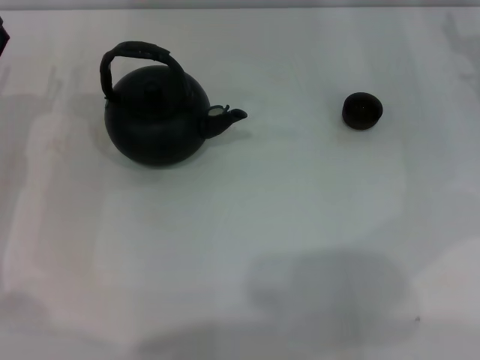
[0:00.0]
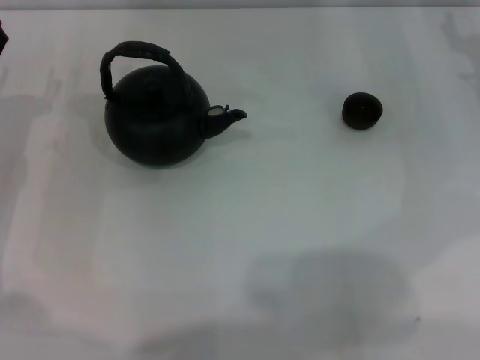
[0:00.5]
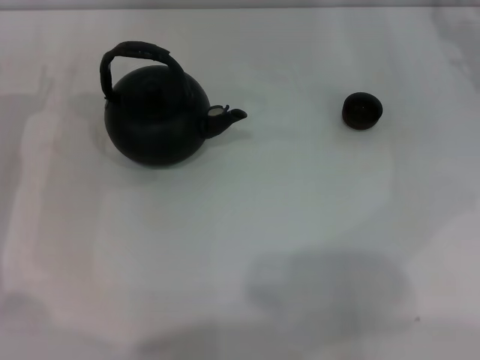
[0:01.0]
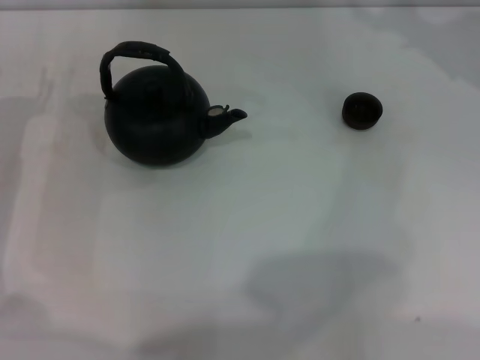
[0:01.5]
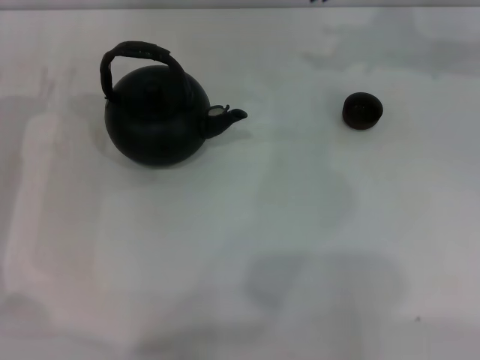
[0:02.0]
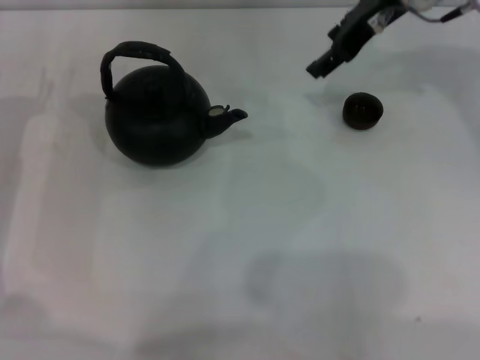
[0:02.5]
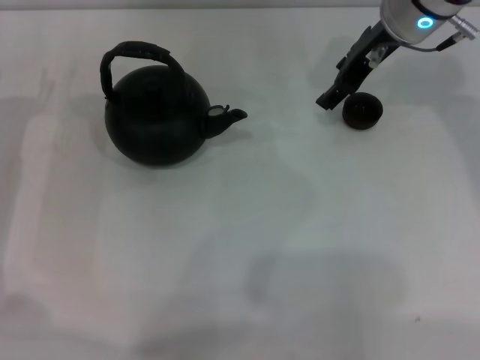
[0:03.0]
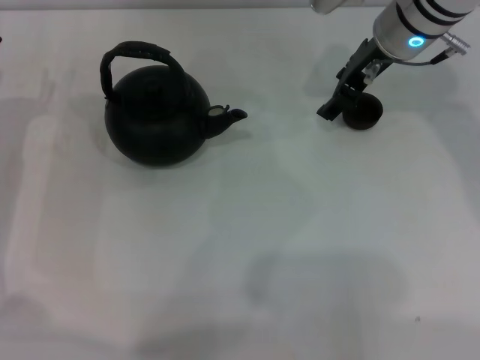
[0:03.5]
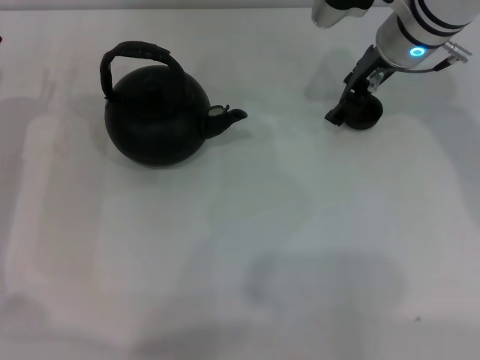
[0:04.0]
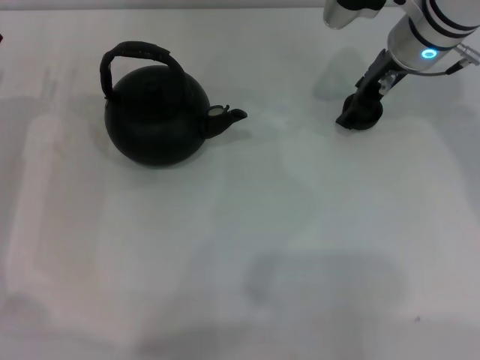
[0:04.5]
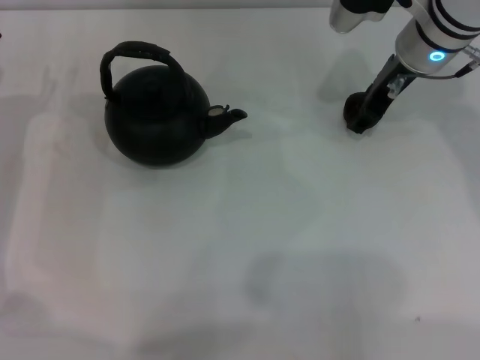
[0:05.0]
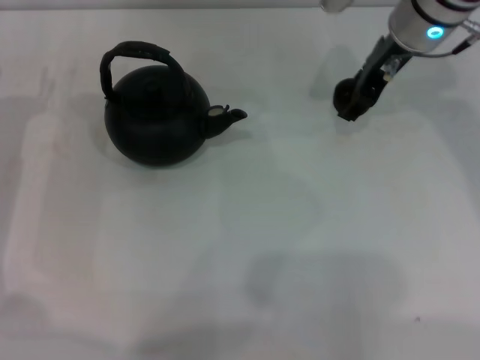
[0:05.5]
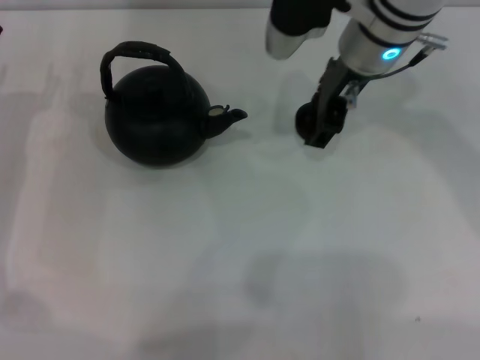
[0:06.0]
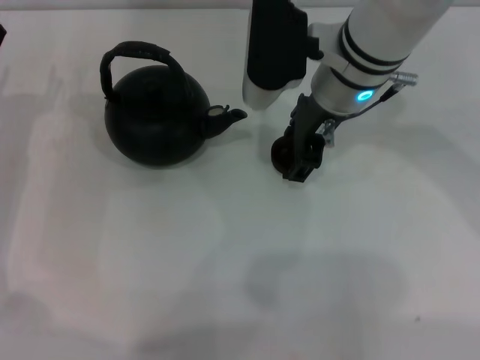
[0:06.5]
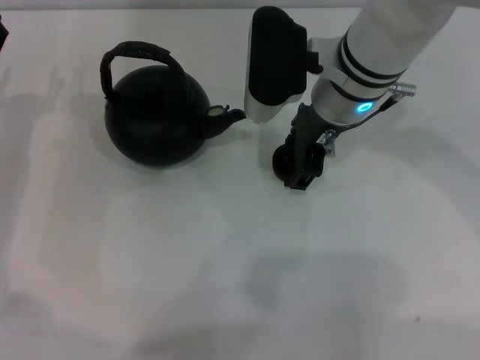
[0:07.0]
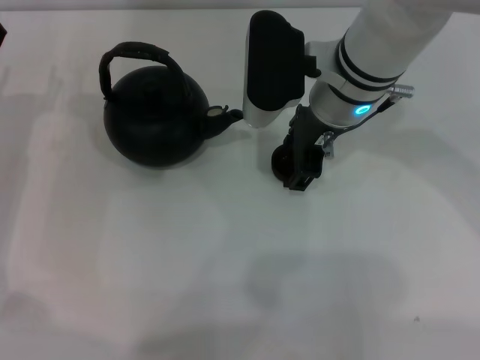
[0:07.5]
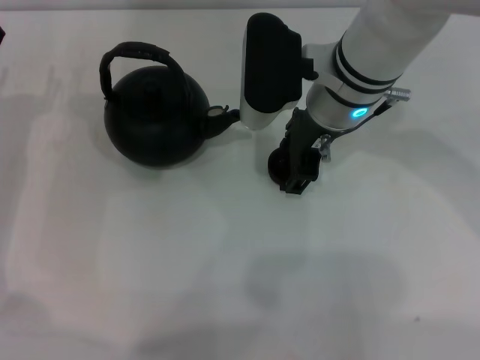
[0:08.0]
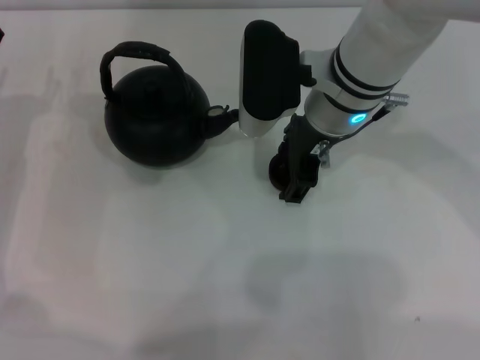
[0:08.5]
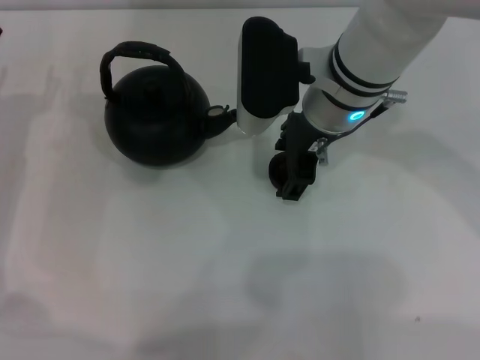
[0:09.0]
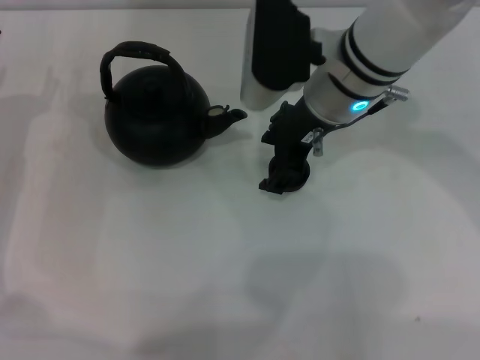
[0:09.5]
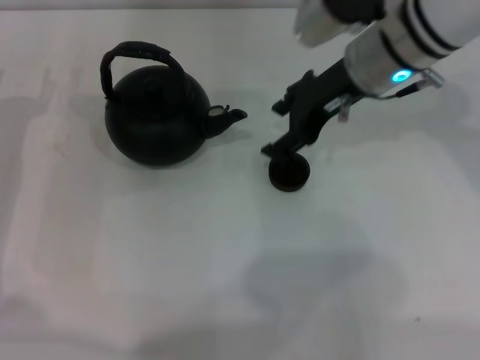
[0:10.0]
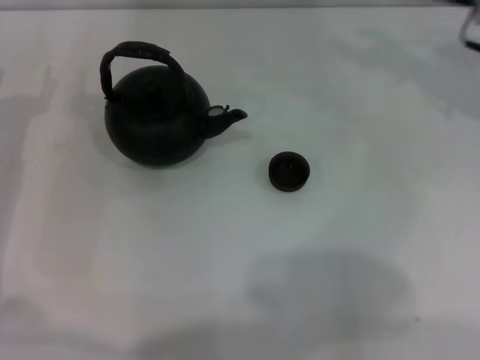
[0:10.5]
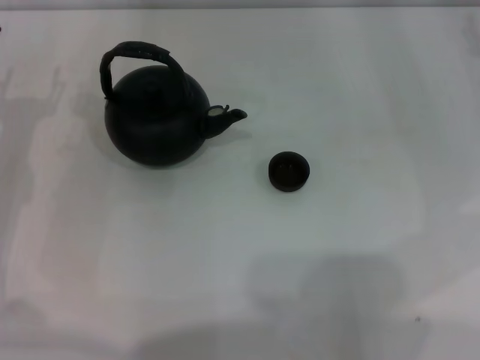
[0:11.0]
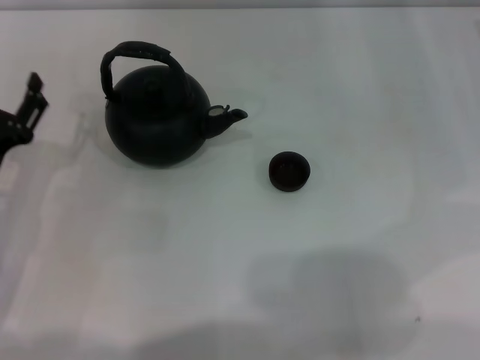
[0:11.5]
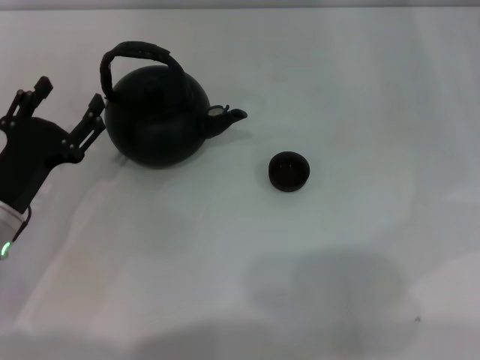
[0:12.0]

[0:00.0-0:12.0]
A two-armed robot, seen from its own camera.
Task of the whole recording: Grasp the handle of the teapot with one hand and pour tea into the teacup.
Step, 0:00.0 to 0:05.5: Pick up the teacup with the right gripper.
Step, 0:06.0 to 0:10.0: Place the teacup in the center of view with the right gripper.
0:02.0 to 0:04.0: The right gripper heads downward and to the left, covering roughly 10 cm.
0:04.0 to 0:06.0: The right gripper heads to the left, covering roughly 5 cm, and closes.
0:06.0 to 0:08.0: The right gripper shifts by about 5 cm, and opens its fingers.
0:08.0 to 0:10.0: The right gripper shifts about 5 cm to the right.
0:10.0 to 0:12.0: The right gripper heads to the right, covering some 20 cm. Meanwhile the left gripper moves backward, some 5 cm.

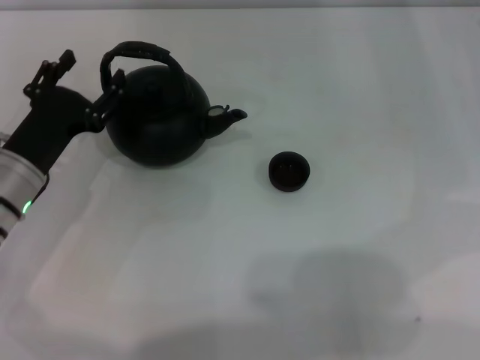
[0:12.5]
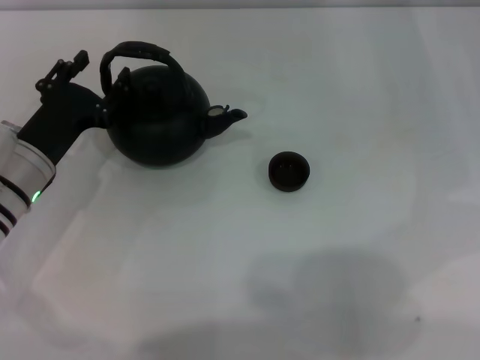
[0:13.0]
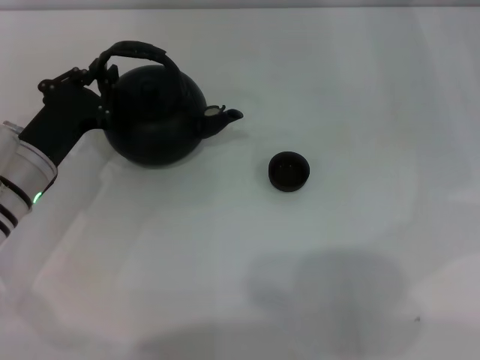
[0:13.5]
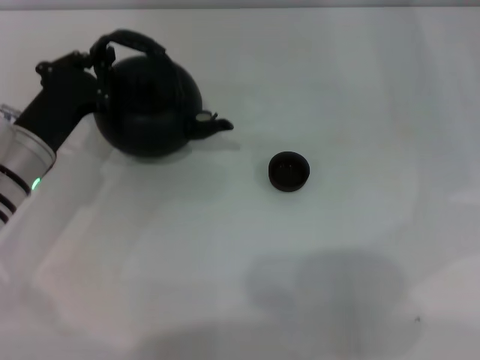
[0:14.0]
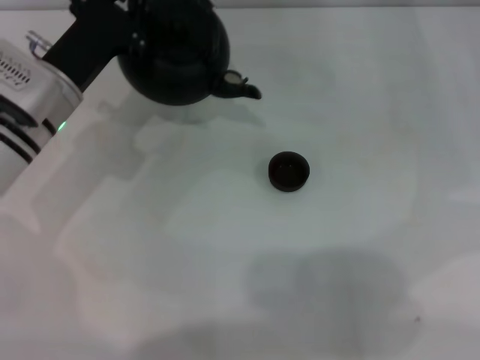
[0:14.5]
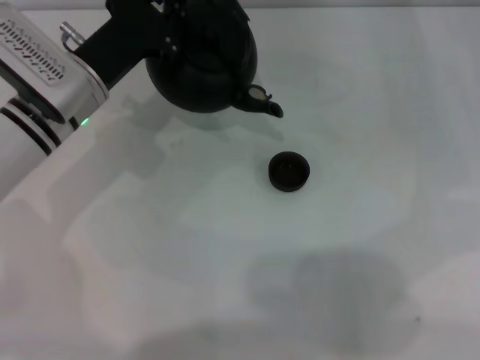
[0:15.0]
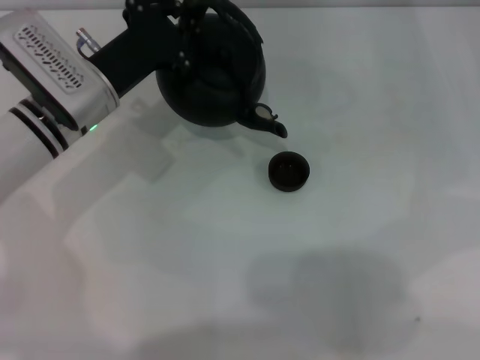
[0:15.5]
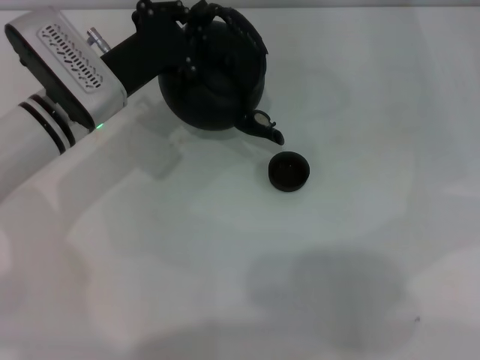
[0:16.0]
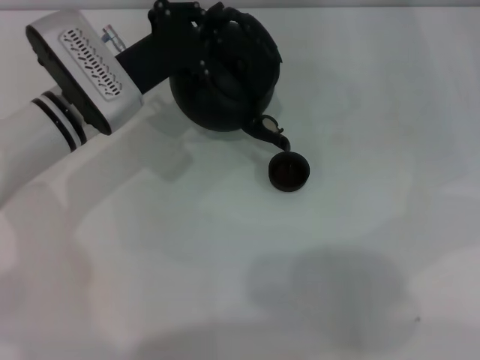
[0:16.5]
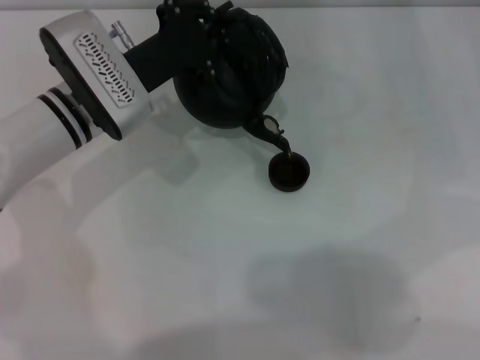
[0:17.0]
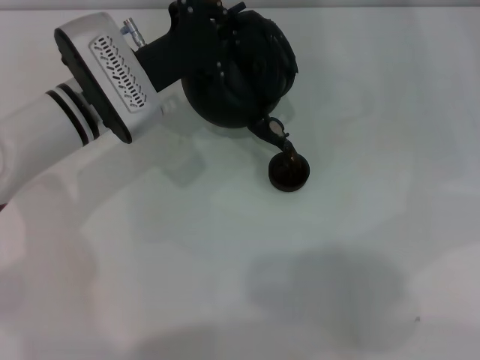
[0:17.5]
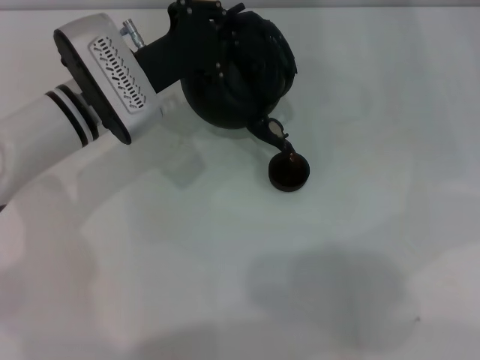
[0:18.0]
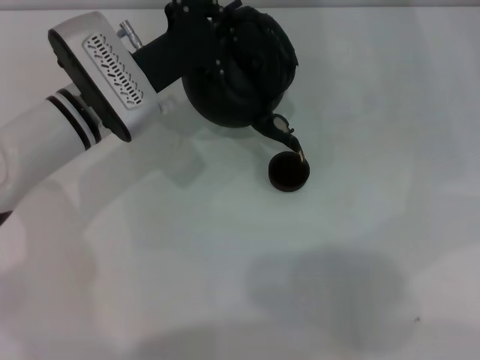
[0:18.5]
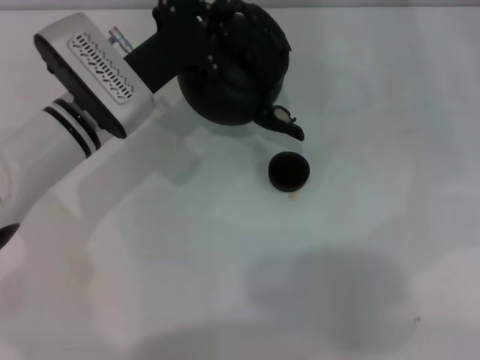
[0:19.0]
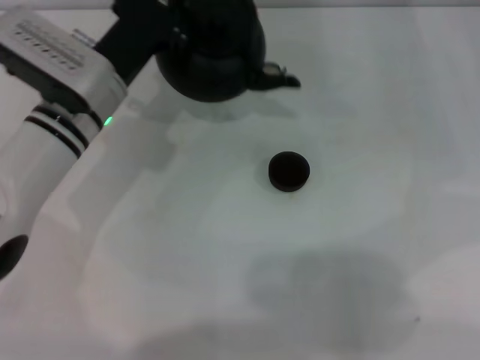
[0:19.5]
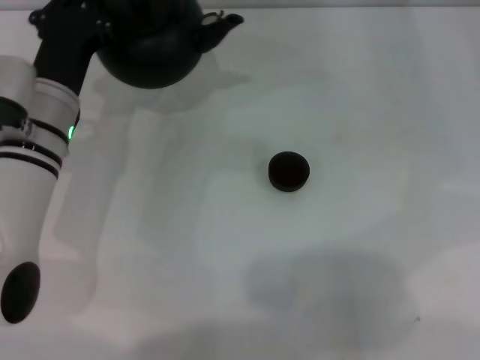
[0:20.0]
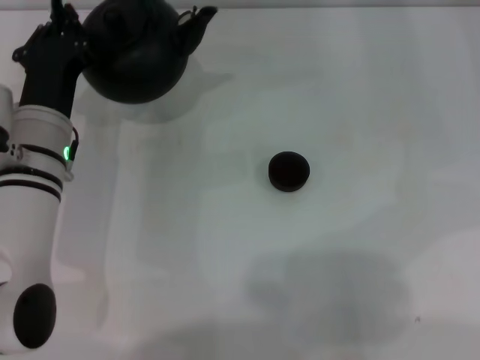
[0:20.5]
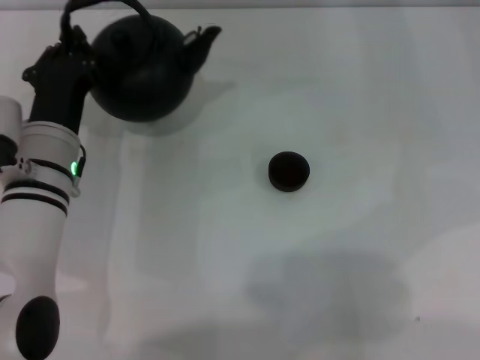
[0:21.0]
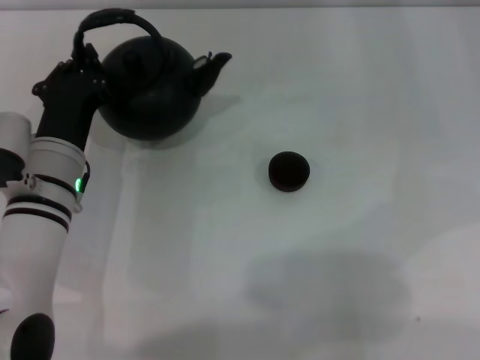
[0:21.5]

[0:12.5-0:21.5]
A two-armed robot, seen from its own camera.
Task of the whole recording: Grasp the handle of the teapot with one hand and pour tea into the teacup.
Step, 0:12.5 to 0:15.0: Pick up the teapot with the left gripper.
Step, 0:15.5 to 0:19.0: Pour tea into the teacup with the left gripper.
0:12.5 to 0:14.5: The left gripper moves forward, roughly 5 cm, and closes its fingers.
0:14.5 to 0:17.0: The left gripper goes some 5 cm to the right.
0:19.5 to 0:21.5: The left gripper shifts about 5 cm backward.

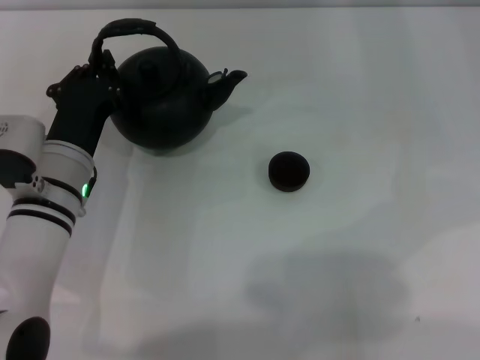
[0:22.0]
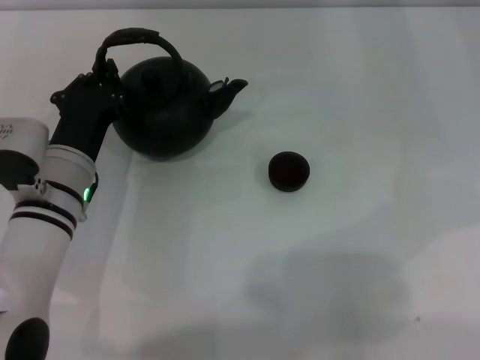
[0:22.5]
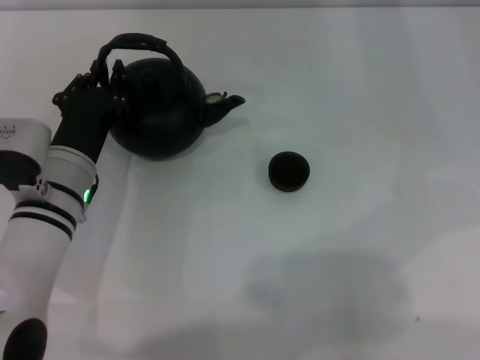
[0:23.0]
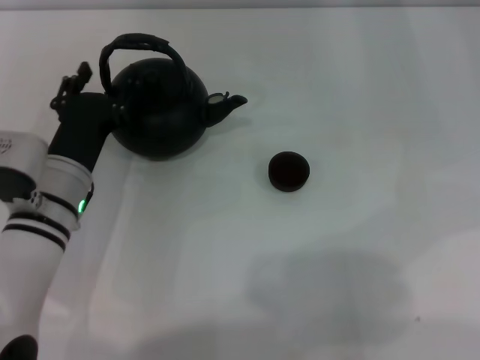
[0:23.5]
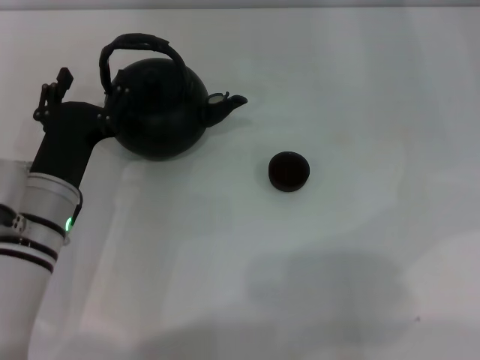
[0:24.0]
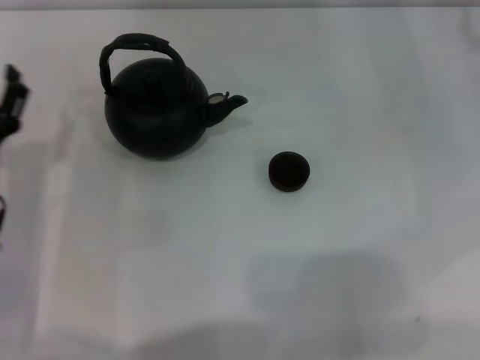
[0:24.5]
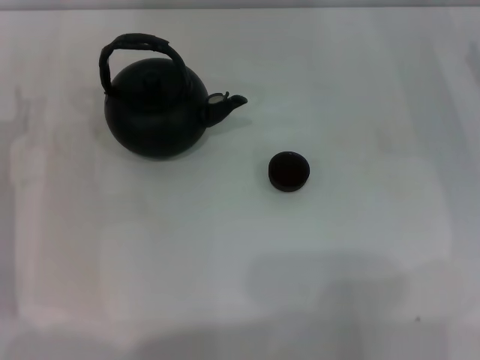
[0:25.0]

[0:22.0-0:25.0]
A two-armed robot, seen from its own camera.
Task of the whole recording: Grasp the handle of the teapot with one hand and pour tea into the teacup.
0:22.0 to 0:23.5: The left gripper opens its fingers.
0:23.5 to 0:25.0: The left gripper goes about 10 cm to the left, and opens up.

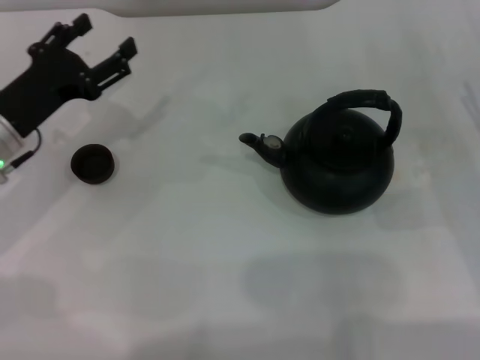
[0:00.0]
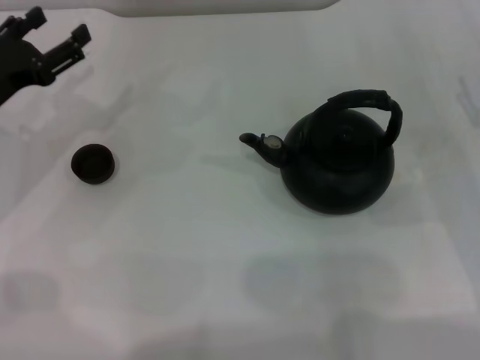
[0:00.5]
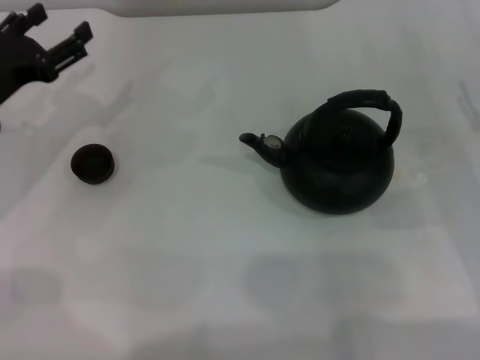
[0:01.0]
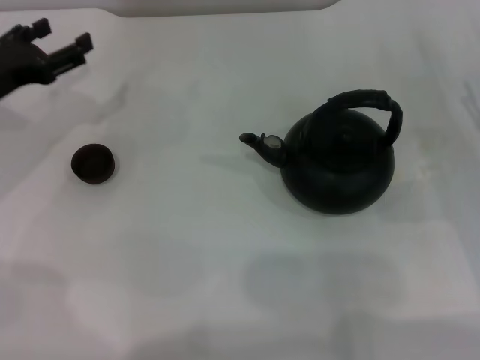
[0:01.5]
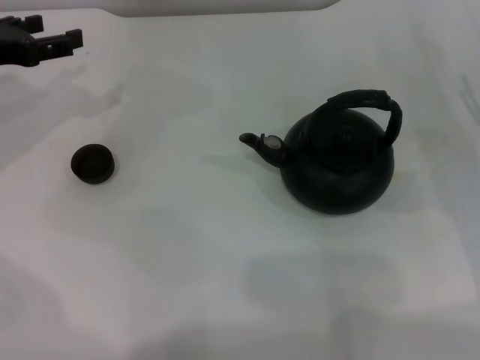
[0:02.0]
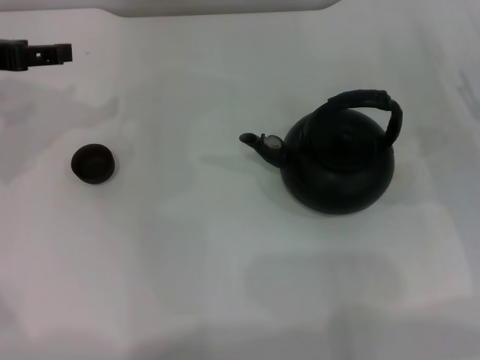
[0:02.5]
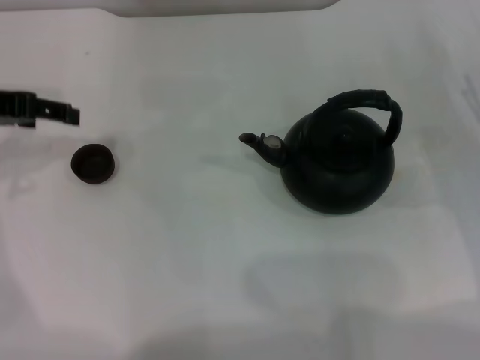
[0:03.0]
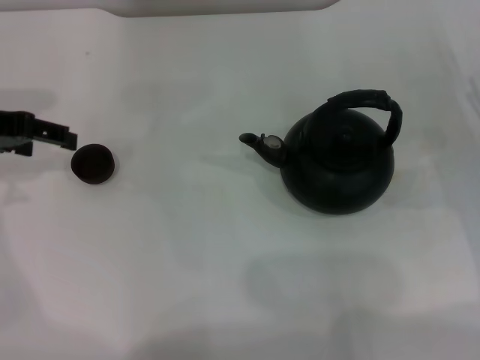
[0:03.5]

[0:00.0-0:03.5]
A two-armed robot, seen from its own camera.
Task of the whole recording: Grasp the handle of the teapot with one hand and pour tea into the teacup.
0:00.0 to 0:02.0: The left gripper travels upward and to the left by roughly 10 cm.
